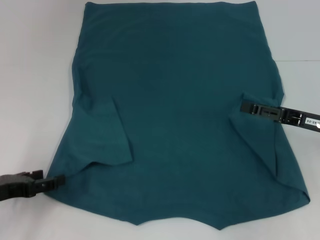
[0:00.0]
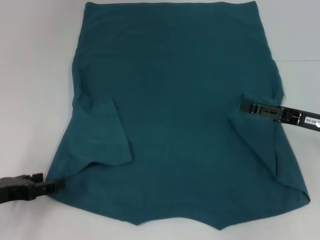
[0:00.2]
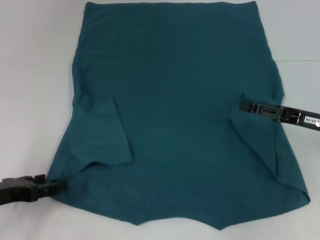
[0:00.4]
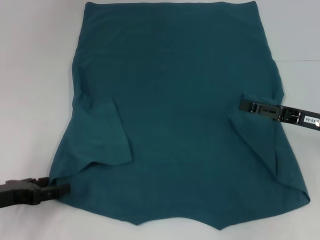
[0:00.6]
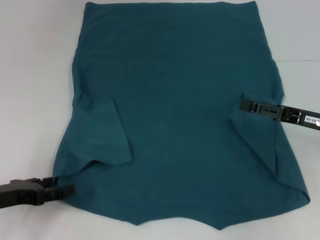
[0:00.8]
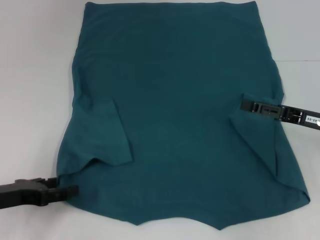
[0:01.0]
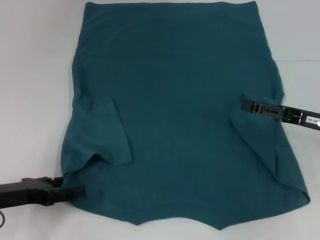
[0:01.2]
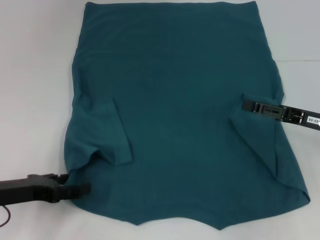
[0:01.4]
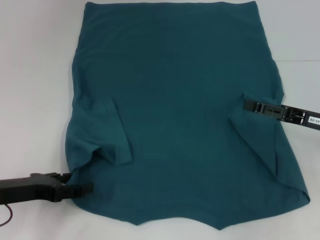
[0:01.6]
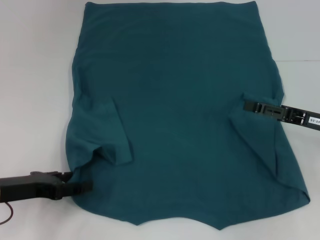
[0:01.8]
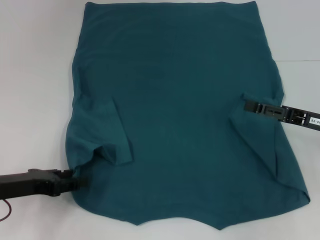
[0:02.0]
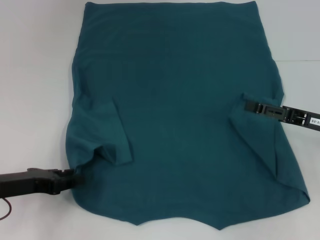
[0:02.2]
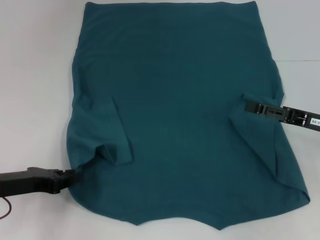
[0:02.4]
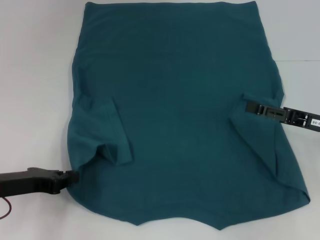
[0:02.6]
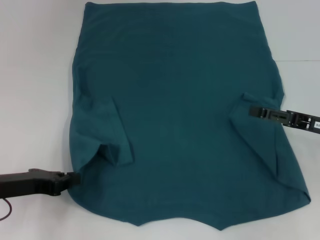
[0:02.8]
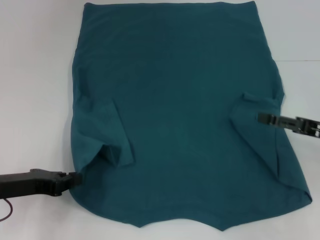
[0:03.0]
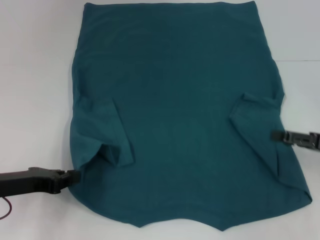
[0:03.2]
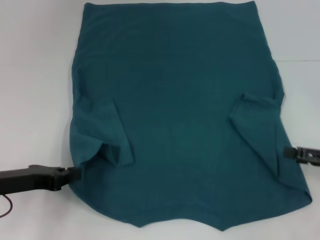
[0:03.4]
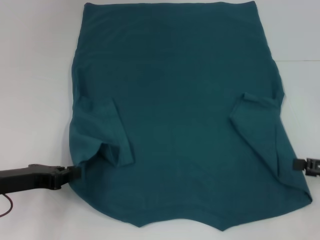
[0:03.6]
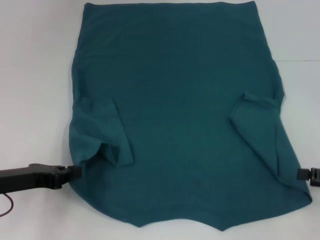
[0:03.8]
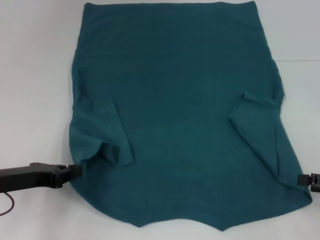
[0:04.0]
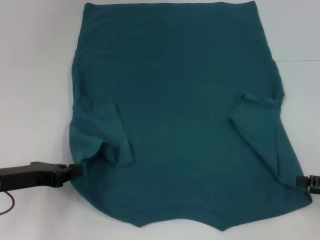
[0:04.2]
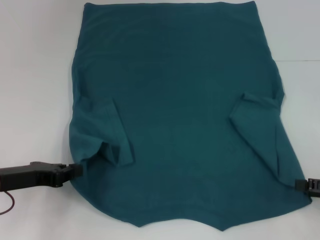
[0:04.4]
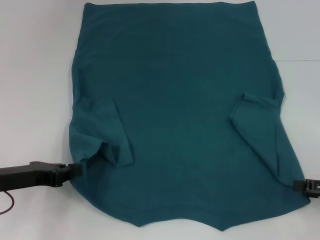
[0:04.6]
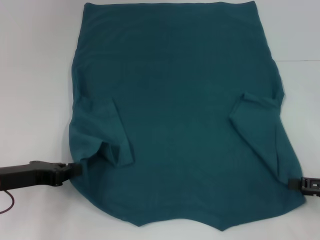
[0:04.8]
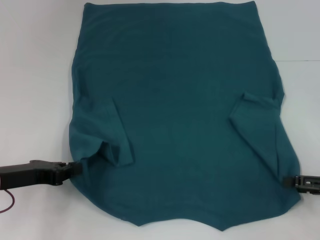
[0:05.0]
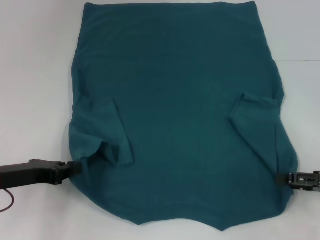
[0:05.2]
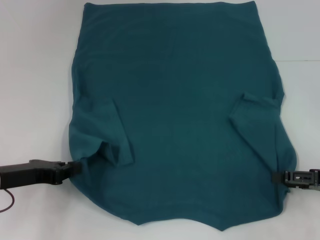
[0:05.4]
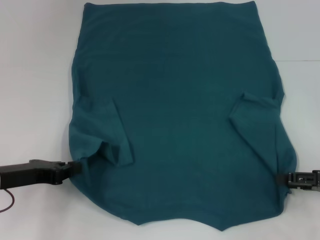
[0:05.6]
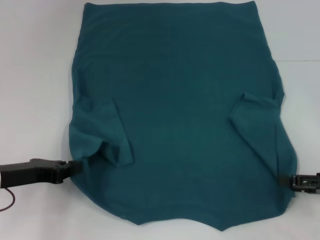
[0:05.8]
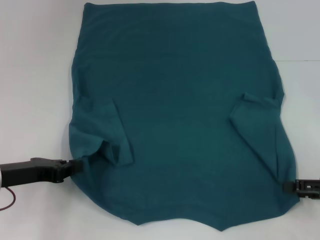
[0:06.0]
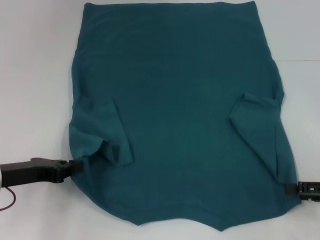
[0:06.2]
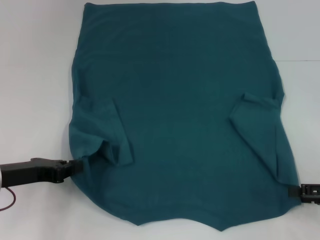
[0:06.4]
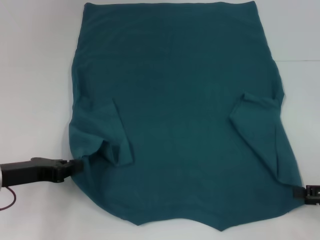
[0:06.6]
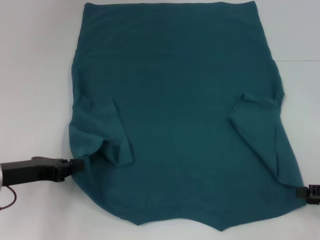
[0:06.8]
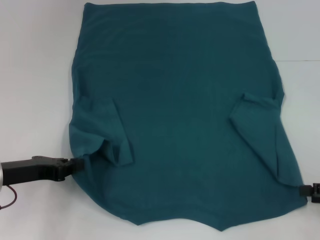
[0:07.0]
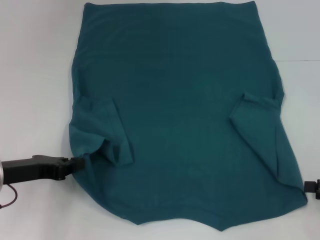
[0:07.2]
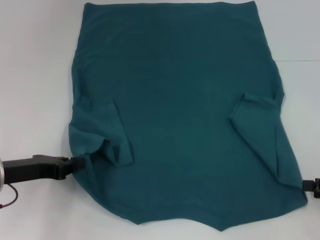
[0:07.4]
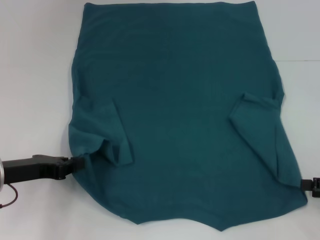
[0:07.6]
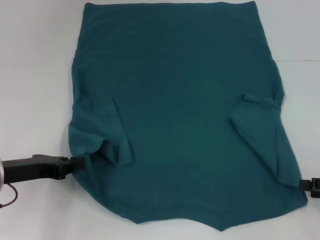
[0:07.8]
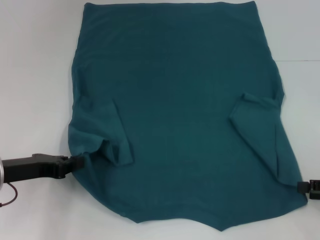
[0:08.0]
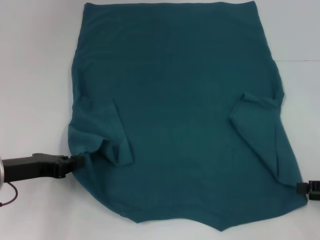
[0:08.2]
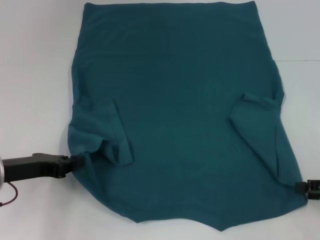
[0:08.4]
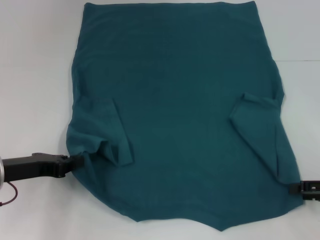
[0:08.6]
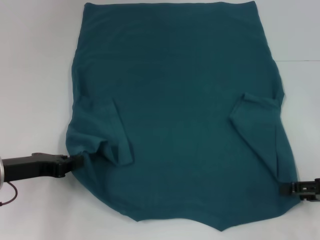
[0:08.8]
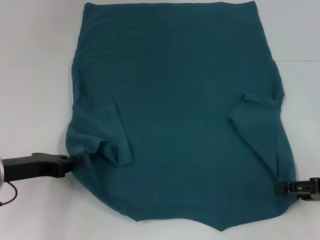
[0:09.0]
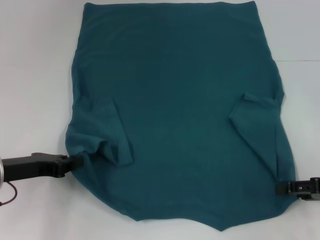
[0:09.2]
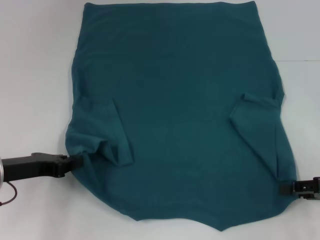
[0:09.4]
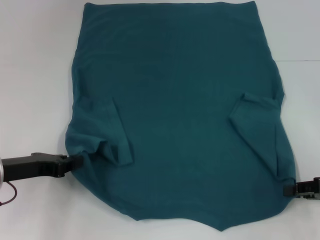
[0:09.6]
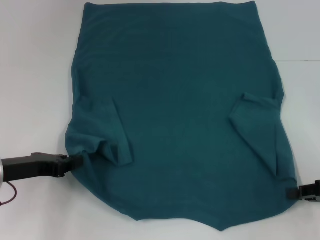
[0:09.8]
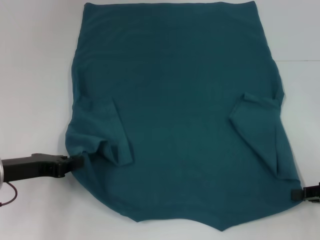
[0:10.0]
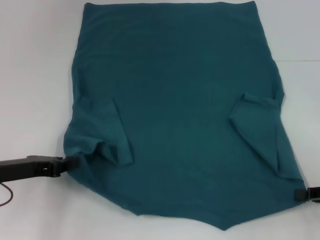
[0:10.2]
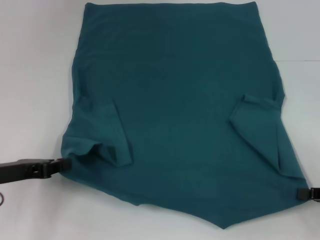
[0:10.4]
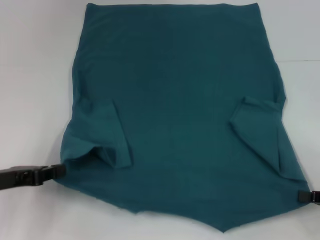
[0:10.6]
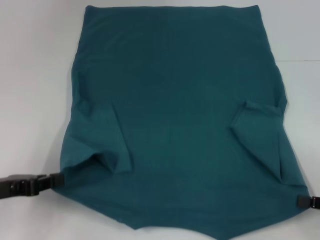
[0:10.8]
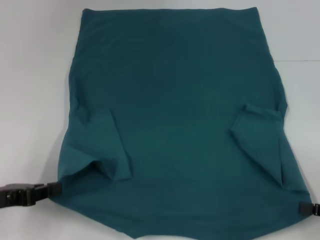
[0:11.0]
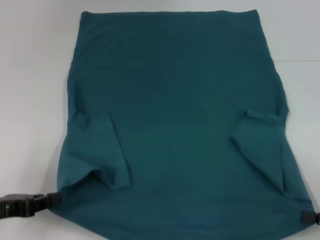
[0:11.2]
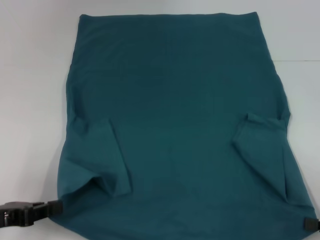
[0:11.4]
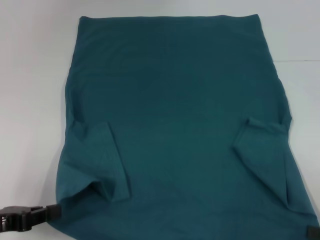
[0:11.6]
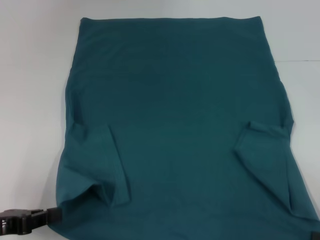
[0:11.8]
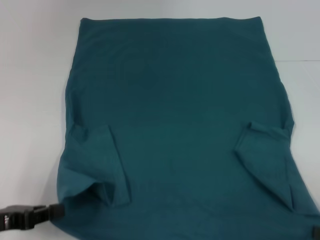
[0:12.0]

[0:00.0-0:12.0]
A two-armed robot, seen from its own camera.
Step, 0:00.0 to 0:03.0: Grab the bottom left corner with your left hand.
Step, 0:03.2 to 0:10.0: Grab the bottom right corner with your right hand.
0:00.0 to 0:01.6: The grippers move only a little.
0:01.6 to 0:03.0: The left gripper closes up.
0:03.0 to 0:04.4: The right gripper travels backward and to the right by roughly 10 cm.
0:04.4 to 0:09.0: The grippers stay close to where they were, moving slightly.
0:09.0 to 0:10.4: The right gripper closes up.
0:10.4 to 0:12.0: Both grippers travel together backward, approximately 5 cm.

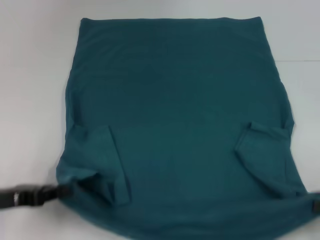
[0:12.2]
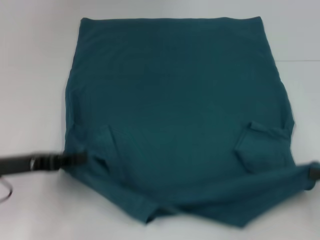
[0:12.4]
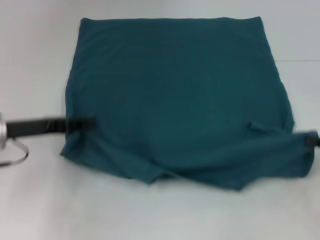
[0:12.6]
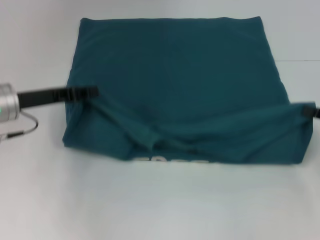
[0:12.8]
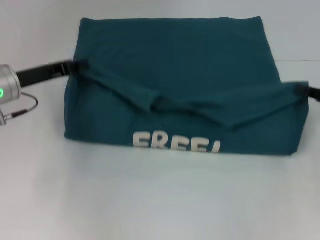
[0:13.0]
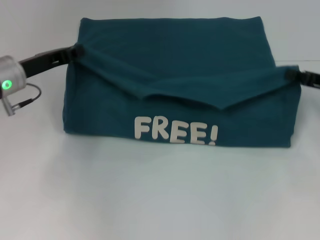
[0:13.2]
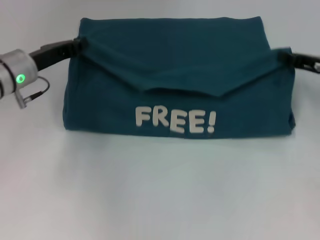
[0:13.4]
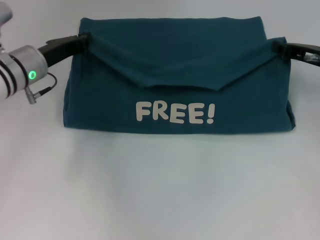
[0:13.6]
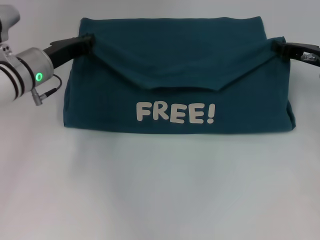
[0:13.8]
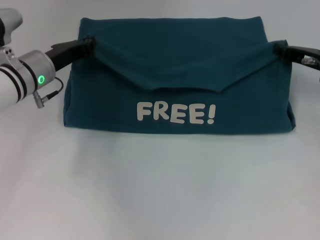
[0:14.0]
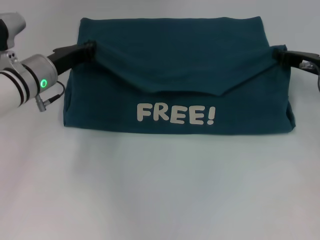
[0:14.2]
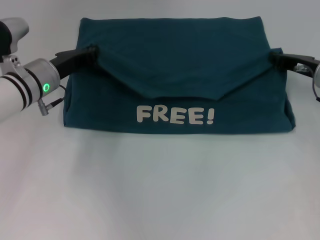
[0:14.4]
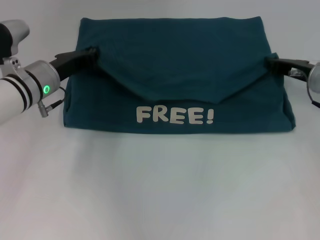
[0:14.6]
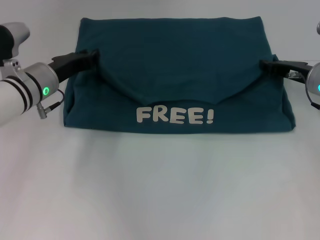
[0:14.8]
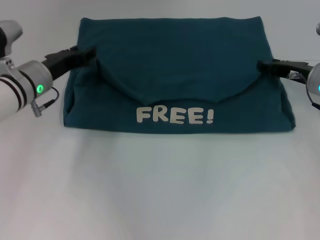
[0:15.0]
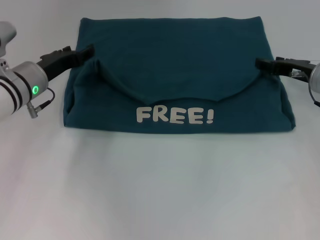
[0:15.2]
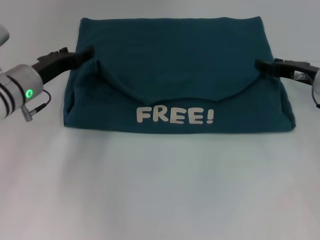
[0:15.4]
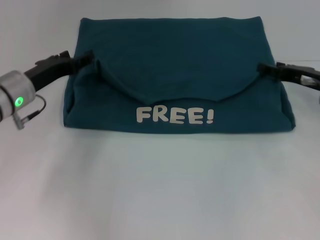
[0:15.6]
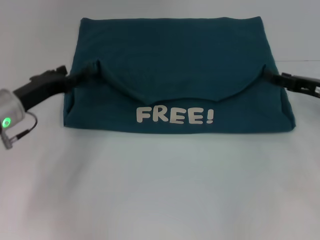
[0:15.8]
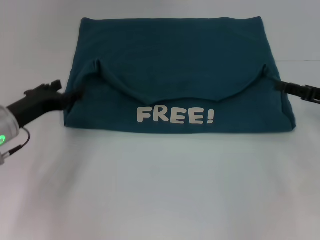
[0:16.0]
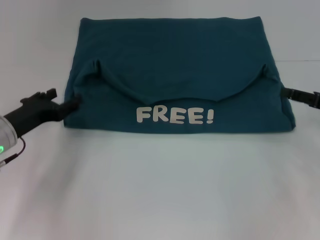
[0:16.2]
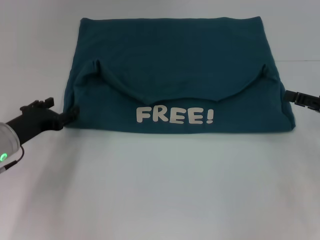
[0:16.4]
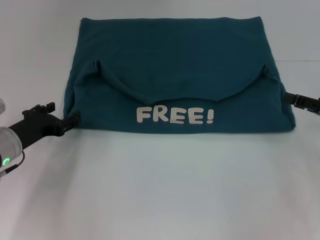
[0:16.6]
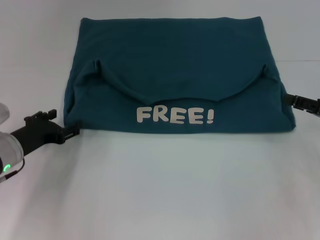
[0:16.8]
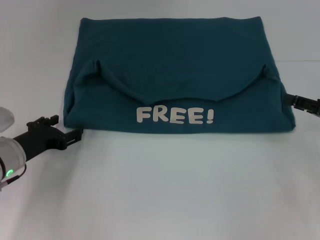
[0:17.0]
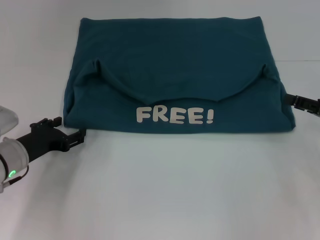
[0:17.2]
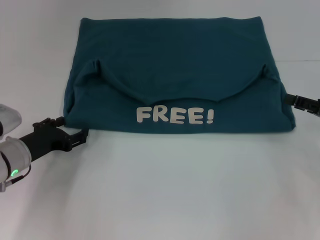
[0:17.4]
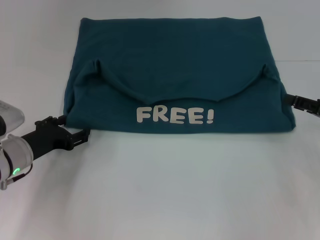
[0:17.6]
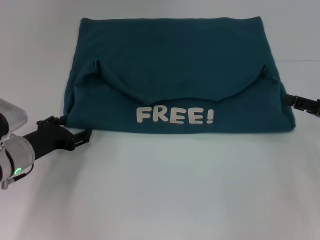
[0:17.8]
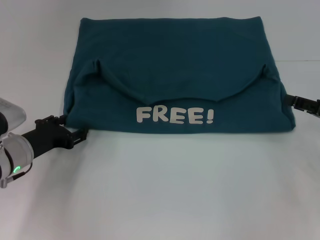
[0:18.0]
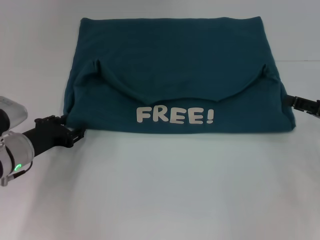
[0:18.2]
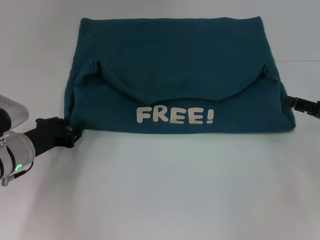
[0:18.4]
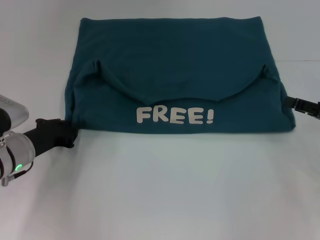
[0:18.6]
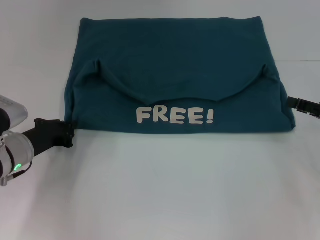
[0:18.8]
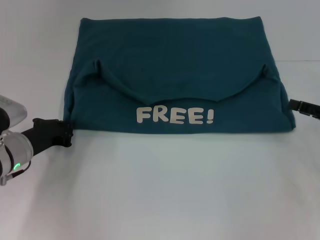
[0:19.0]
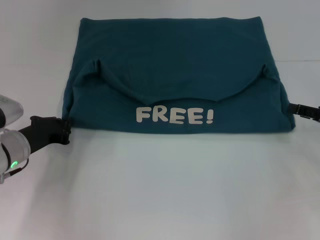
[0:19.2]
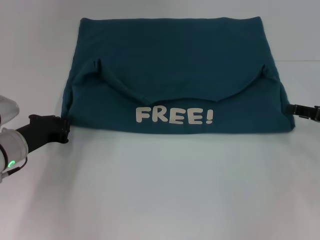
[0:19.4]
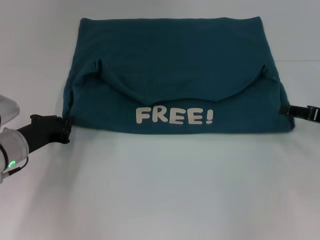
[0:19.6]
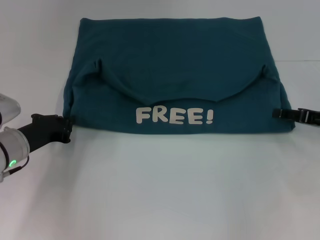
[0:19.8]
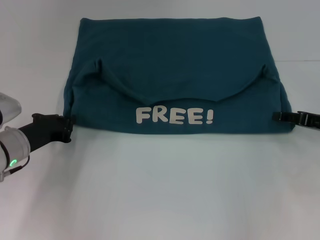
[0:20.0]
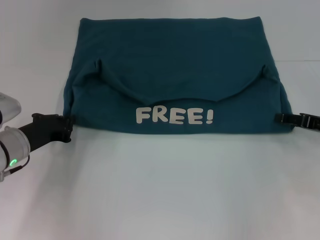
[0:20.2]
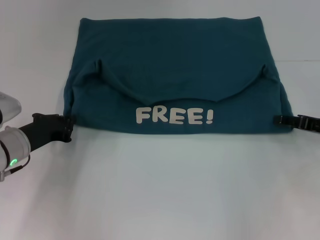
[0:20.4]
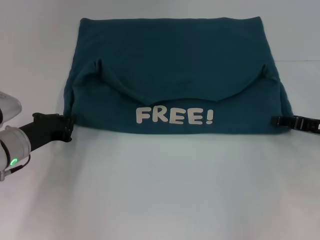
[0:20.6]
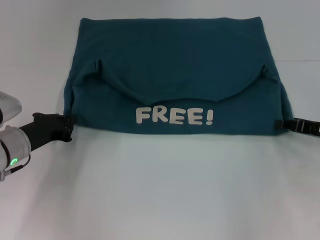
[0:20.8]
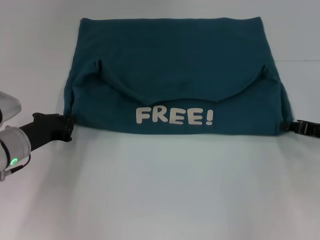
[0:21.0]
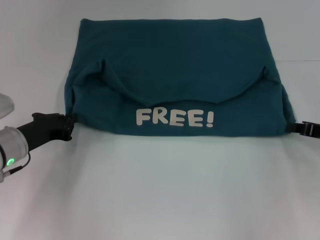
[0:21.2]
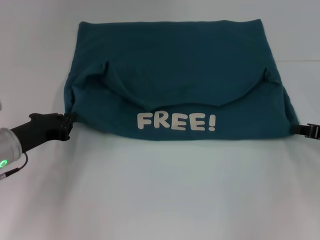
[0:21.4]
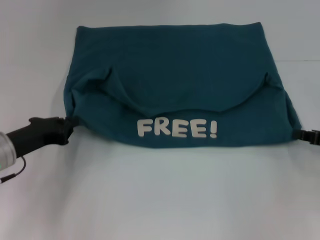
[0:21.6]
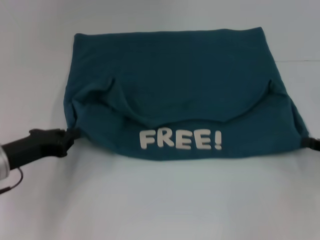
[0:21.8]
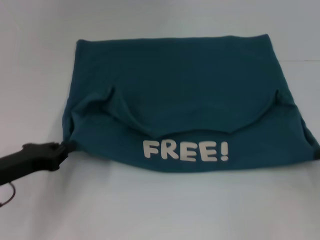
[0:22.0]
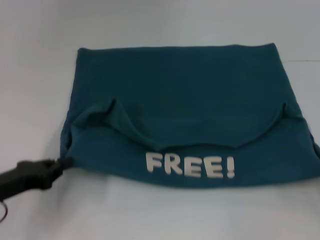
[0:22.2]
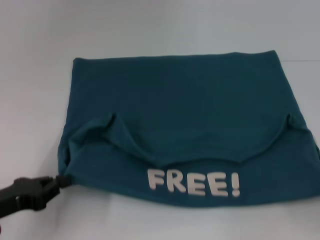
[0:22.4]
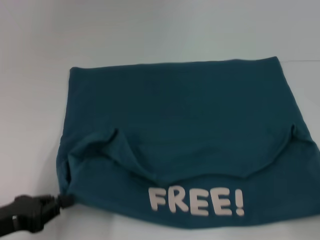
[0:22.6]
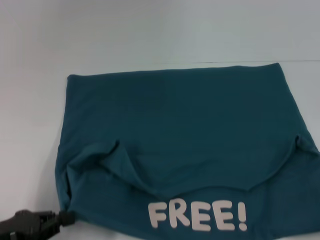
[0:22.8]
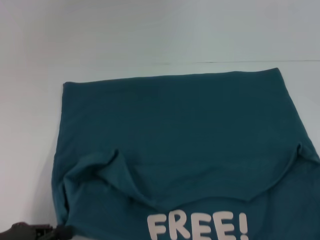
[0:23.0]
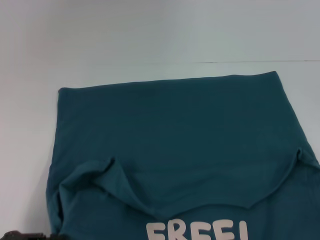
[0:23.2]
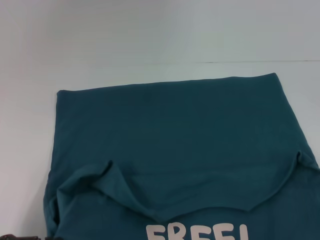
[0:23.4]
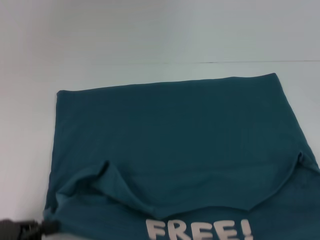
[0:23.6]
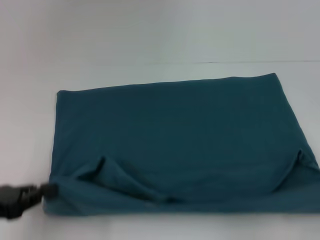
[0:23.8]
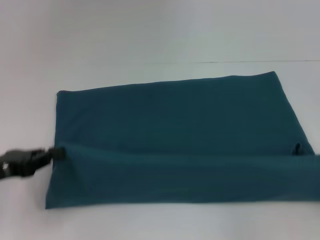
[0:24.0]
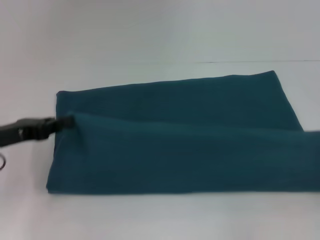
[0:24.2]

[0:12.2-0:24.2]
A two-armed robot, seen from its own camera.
Step, 0:12.2 to 0:15.0: Fold the clothes to the left.
Step, 0:12.2 to 0:15.0: Fold the clothes to the right.
Step, 0:15.2 to 0:23.2: Pull the clothes with your left hand.
Step, 0:15.2 to 0:23.2: Pull the clothes with your right hand.
0:12.2 to 0:13.8: The right gripper shifts roughly 25 cm forward. Meanwhile the left gripper moves forward and to the right, approximately 20 cm.
0:13.8 to 0:15.2: The right gripper opens its fingers.
0:15.2 to 0:16.6: The right gripper goes some 15 cm backward and to the right, while the left gripper goes about 10 cm backward and downward, and opens.
0:16.6 to 0:18.2: The grippers stay close to where they were, moving slightly.
0:18.2 to 0:19.8: The left gripper closes its fingers.
0:19.8 to 0:21.2: The right gripper closes its fingers.
0:21.2 to 0:22.6: The right gripper moves backward and to the right, some 15 cm. Meanwhile the left gripper shifts roughly 15 cm backward.
0:22.6 to 0:24.2: Both grippers move forward, some 10 cm.
